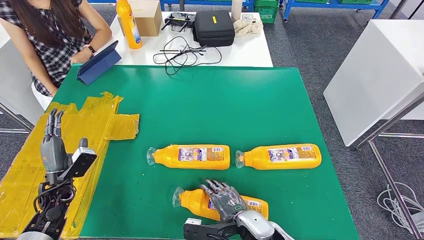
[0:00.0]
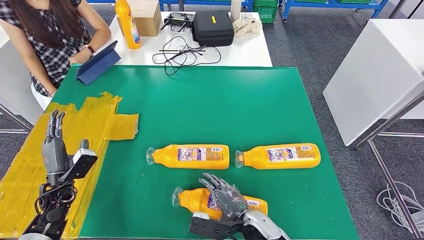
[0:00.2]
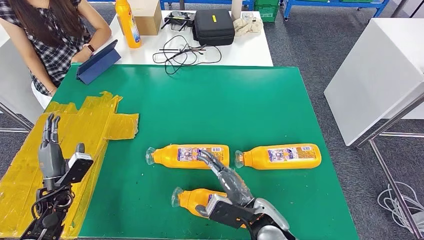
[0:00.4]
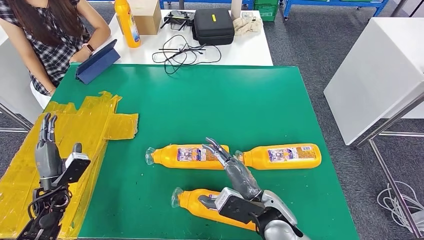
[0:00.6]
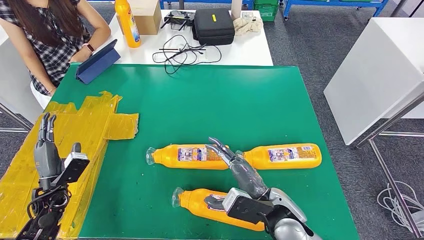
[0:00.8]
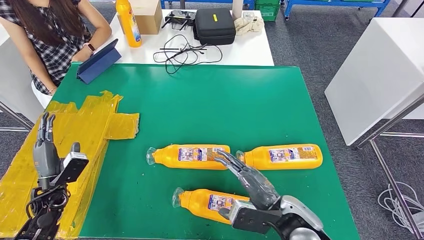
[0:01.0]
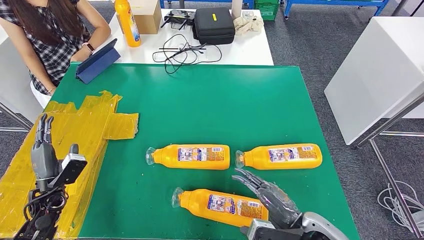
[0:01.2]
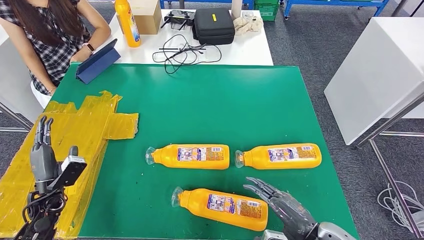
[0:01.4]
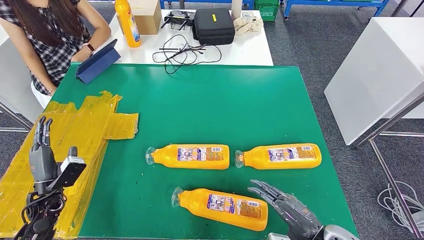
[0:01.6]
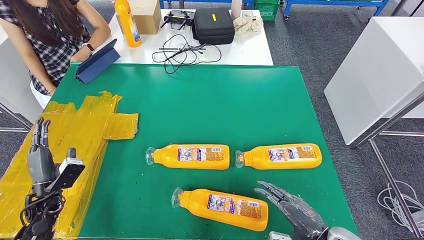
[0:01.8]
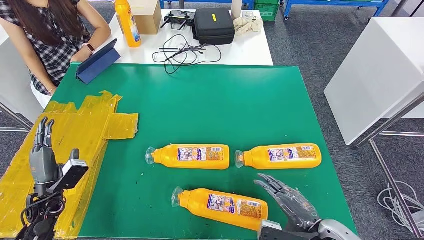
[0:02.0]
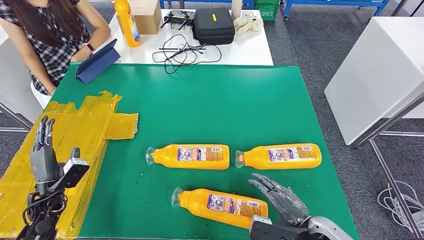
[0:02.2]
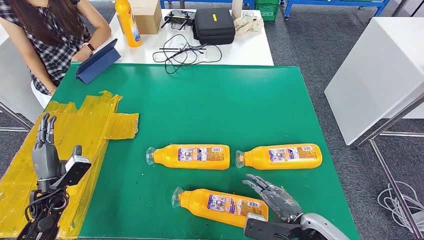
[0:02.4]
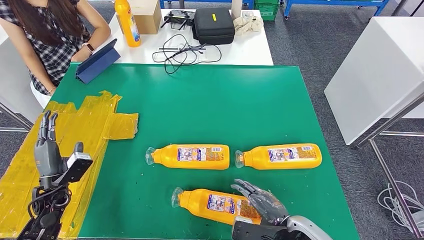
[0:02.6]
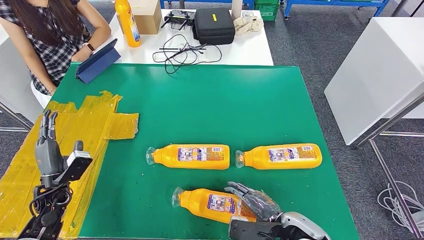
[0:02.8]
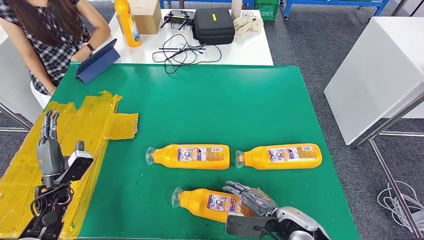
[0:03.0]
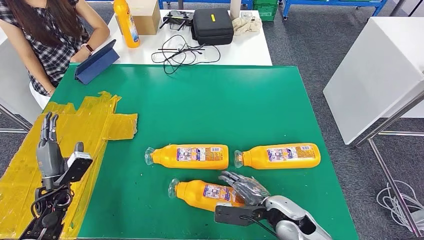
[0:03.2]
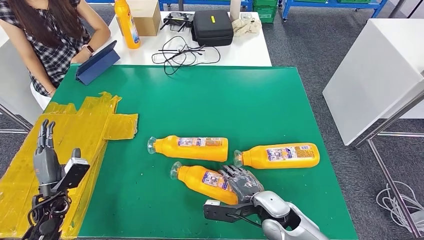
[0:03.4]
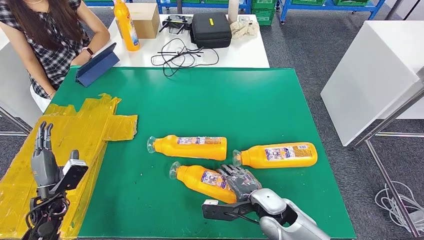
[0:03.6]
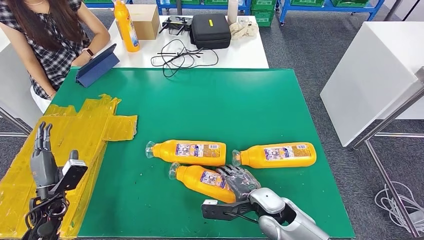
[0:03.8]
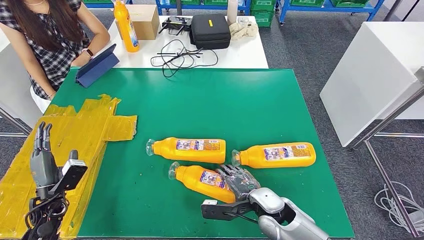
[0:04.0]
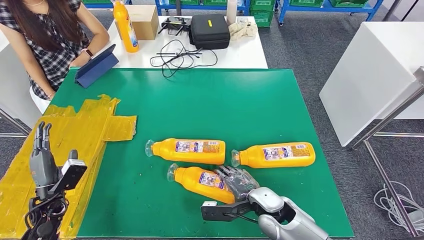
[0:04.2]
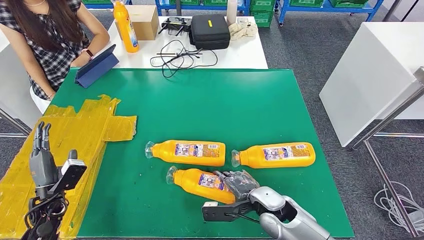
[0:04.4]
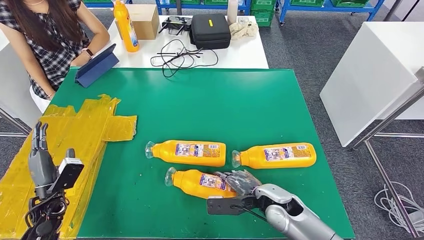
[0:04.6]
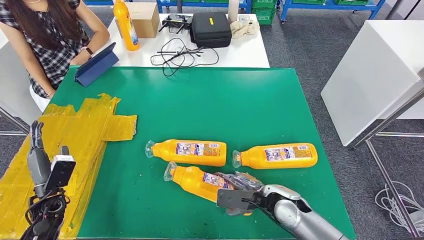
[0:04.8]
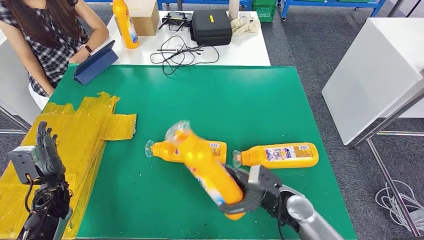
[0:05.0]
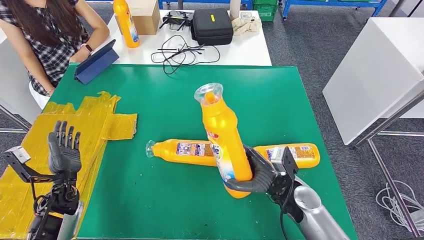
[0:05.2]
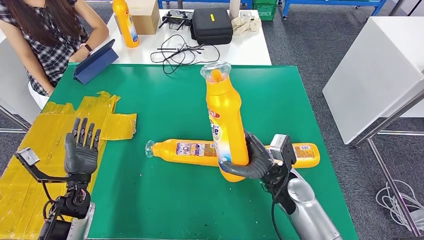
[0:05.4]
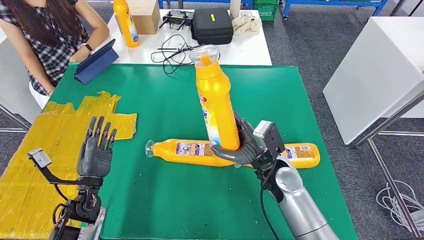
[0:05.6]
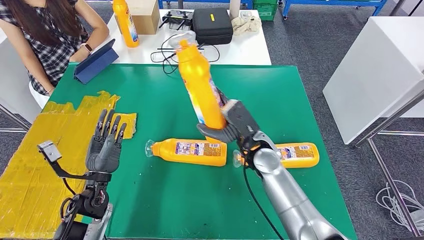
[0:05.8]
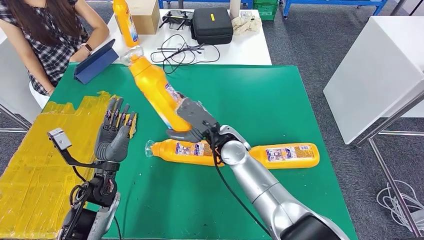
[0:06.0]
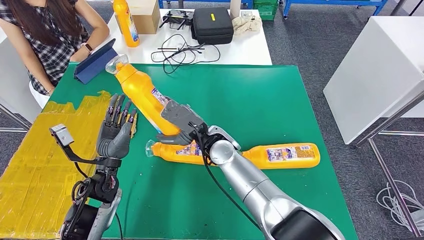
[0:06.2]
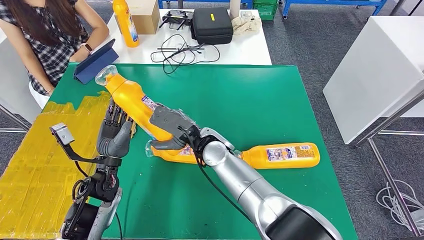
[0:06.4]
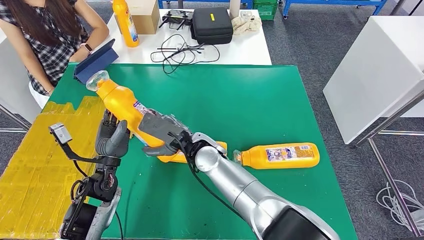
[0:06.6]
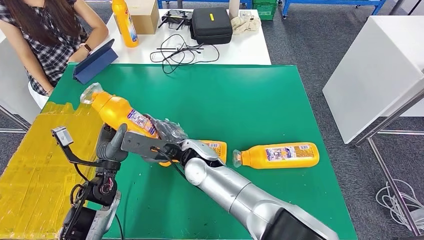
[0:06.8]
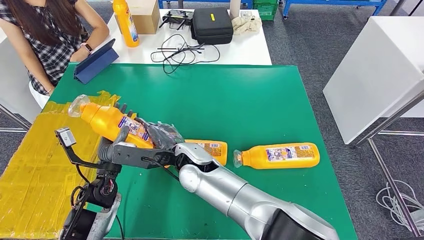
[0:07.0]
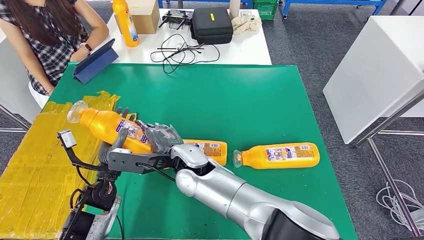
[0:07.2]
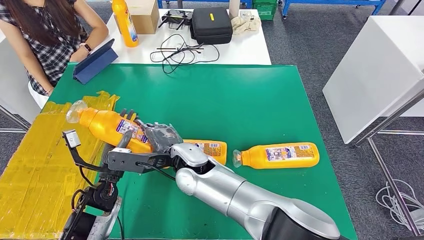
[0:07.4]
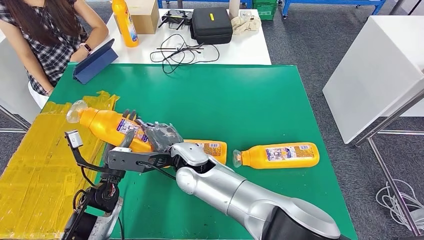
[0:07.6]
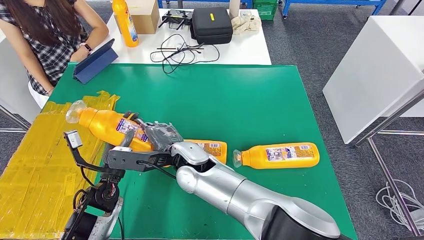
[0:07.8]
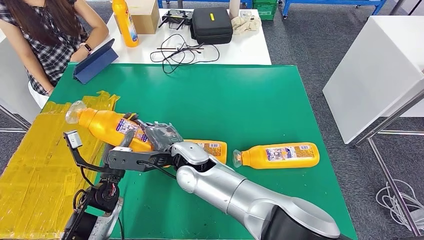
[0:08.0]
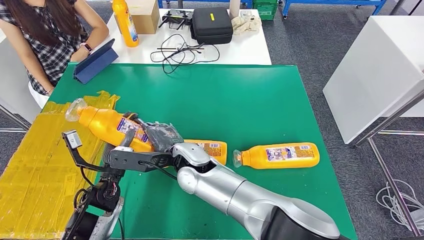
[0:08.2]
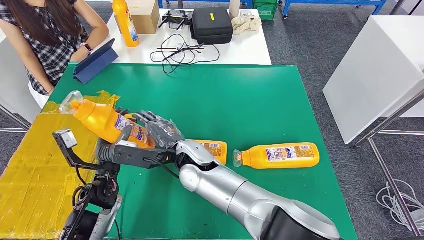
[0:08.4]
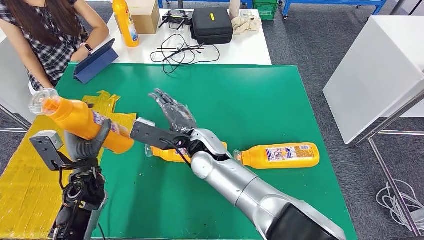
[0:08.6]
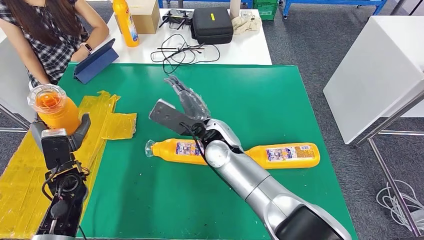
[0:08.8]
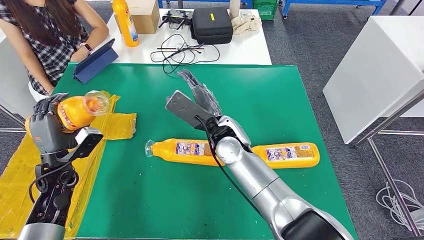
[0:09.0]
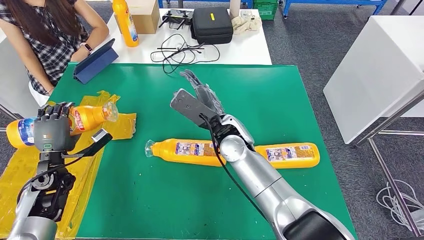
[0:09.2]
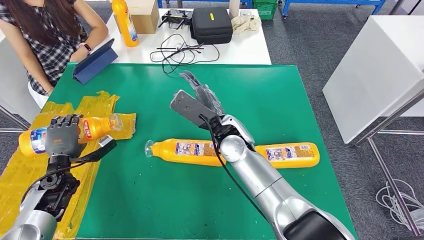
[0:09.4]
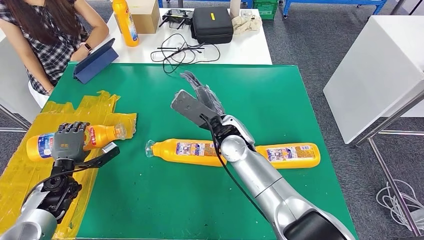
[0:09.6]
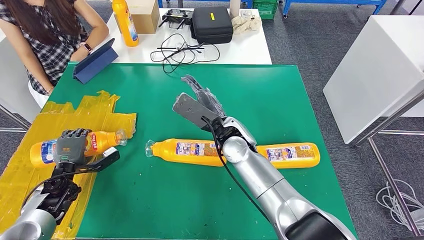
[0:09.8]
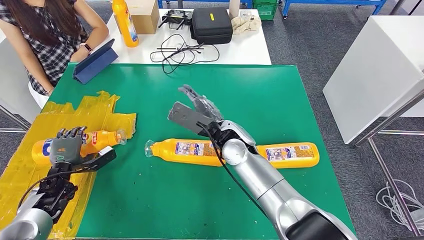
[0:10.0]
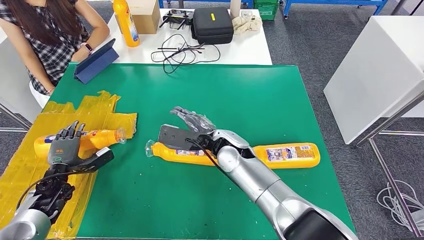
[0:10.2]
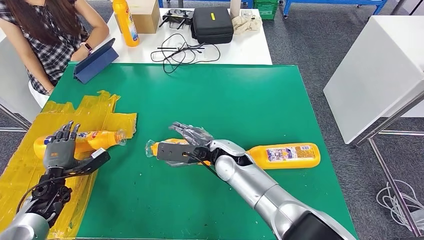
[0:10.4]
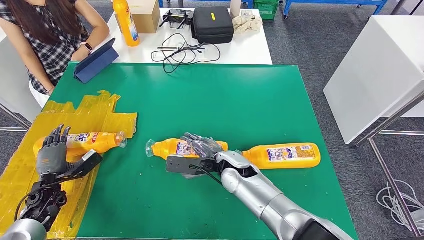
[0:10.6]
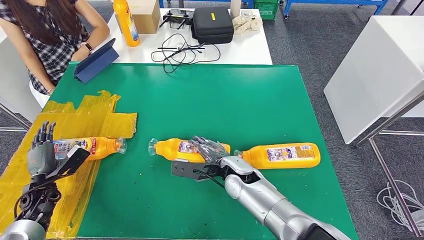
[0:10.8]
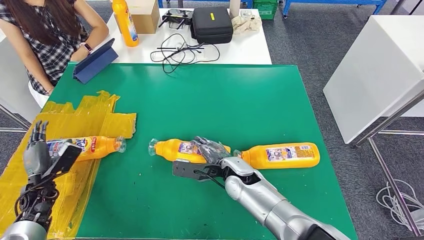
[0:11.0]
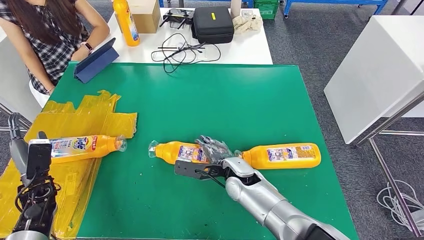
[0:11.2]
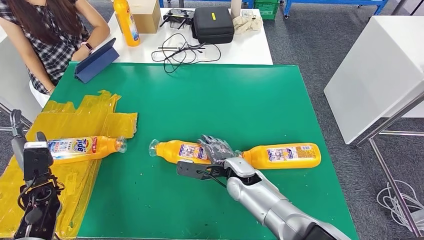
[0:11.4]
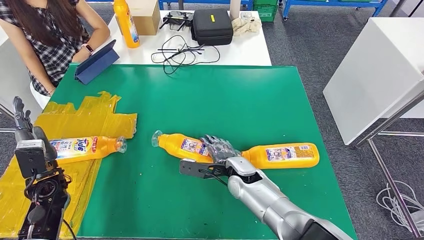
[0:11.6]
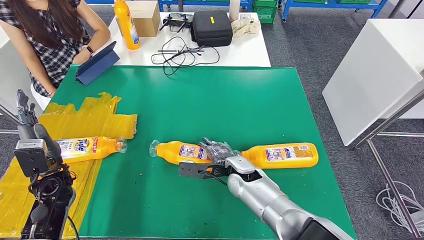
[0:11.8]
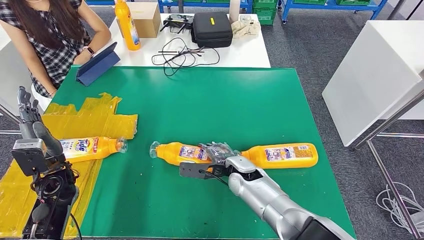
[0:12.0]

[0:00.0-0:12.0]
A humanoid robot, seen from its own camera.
Step, 0:00.0 to 0:07.4: Pick up the fast-moving consumer goods bottle from the table.
Step, 0:07.6 to 0:10.8: Flip the fast-moving consumer goods bottle to the front side.
0:00.0 to 0:01.6: The right hand travels to the right and upward by approximately 20 cm.
0:01.6 to 0:03.0: The right hand shifts roughly 10 cm downward, to the left and forward.
0:09.0 to 0:10.4: The left hand shifts some 10 cm downward and to the left, while the right hand heads downward, covering roughly 5 cm.

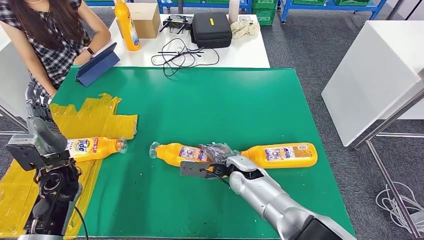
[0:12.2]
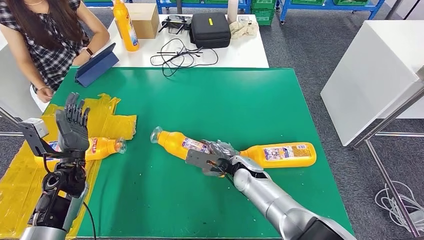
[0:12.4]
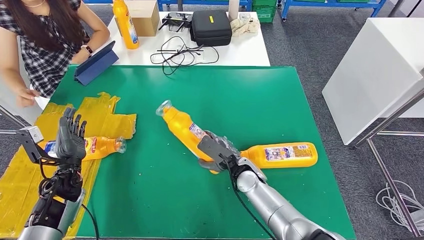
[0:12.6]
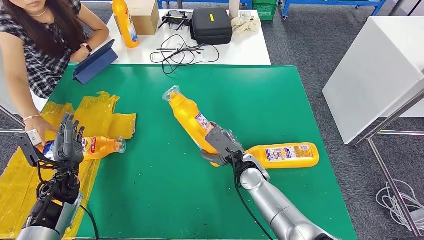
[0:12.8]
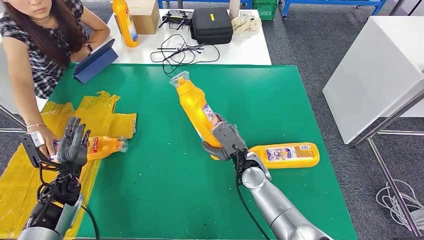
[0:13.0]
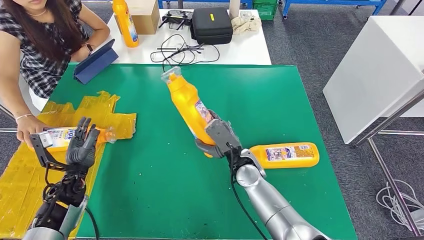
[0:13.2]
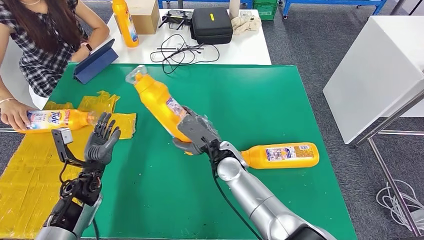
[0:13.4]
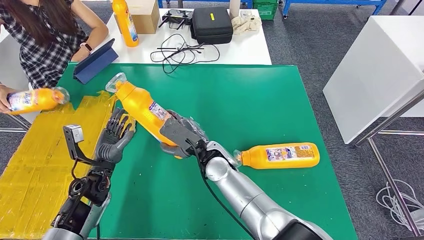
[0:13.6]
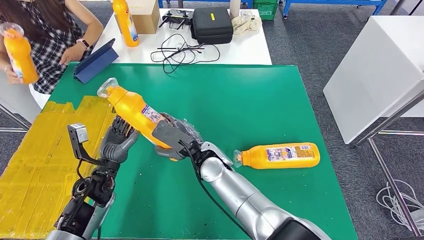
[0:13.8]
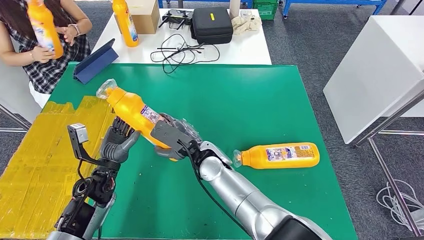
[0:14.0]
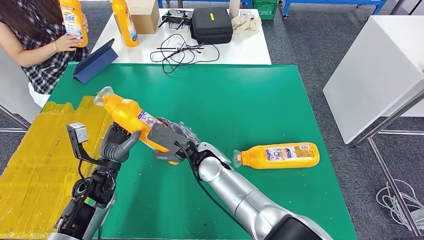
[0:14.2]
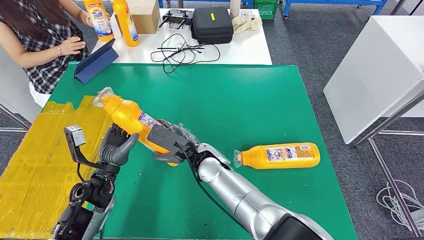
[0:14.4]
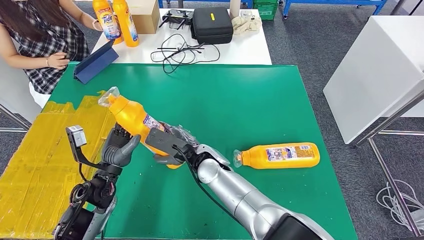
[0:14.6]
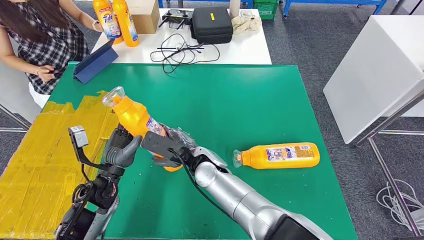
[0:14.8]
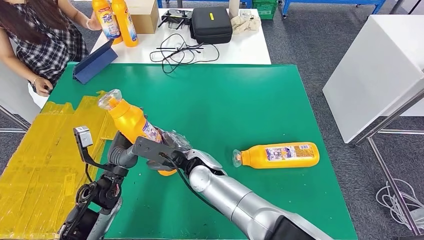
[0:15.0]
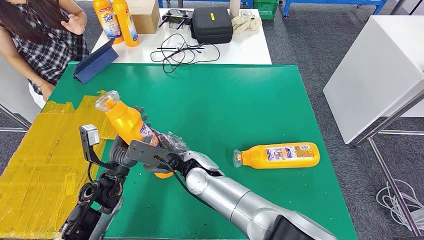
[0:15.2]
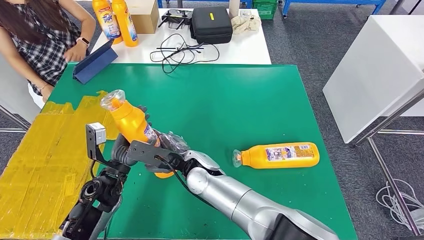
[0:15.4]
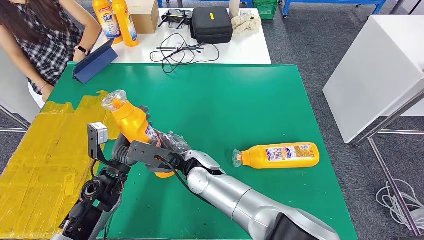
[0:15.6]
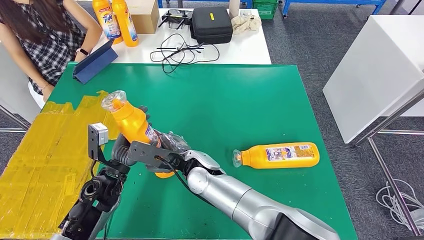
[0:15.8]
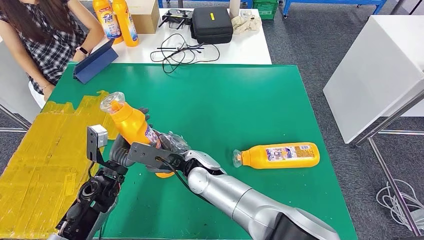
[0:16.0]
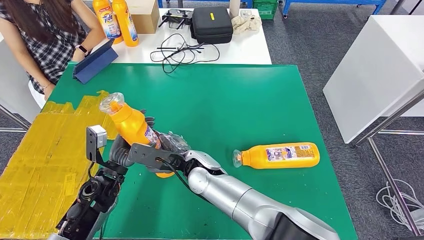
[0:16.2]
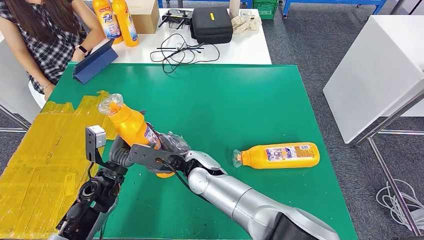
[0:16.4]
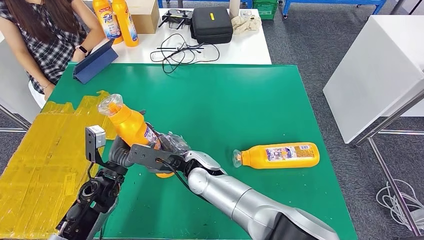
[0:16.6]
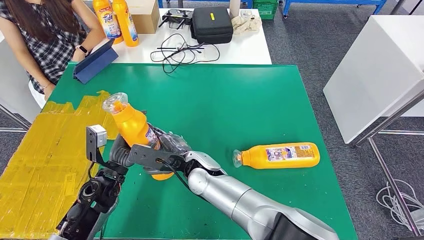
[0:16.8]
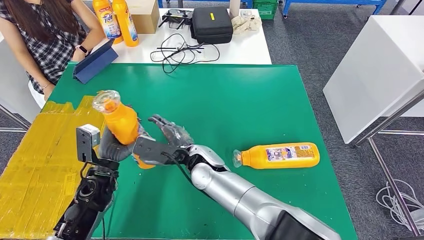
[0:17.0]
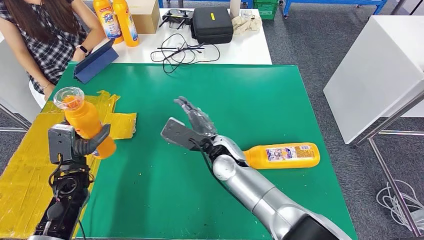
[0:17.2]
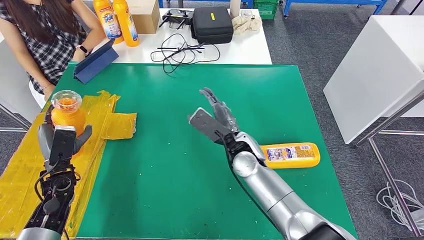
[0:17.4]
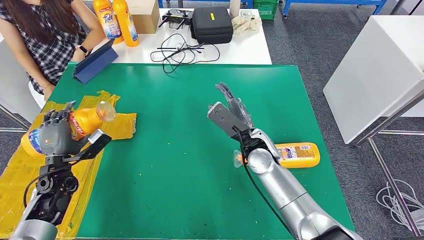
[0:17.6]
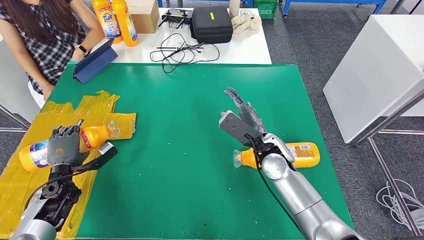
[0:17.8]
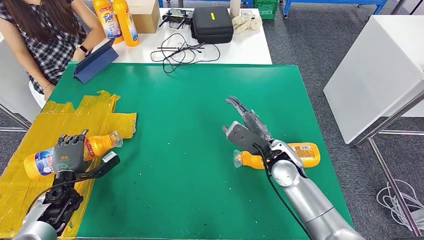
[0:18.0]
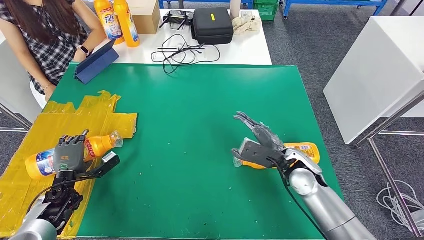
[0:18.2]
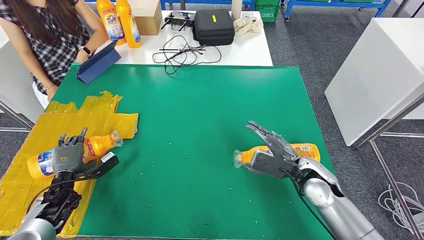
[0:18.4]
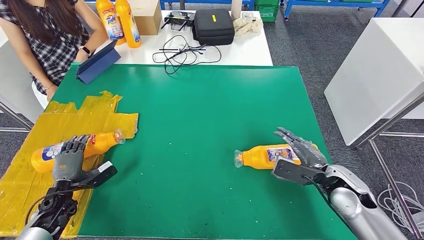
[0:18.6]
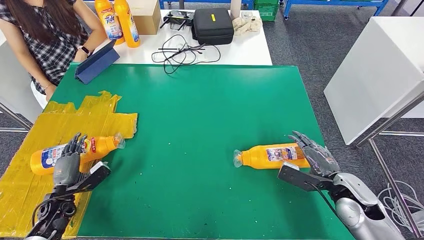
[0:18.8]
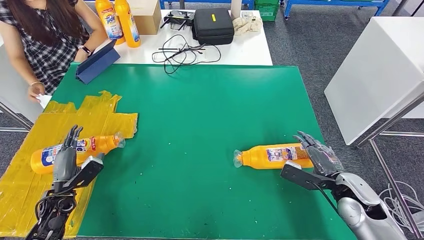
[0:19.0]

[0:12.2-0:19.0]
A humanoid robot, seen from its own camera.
Step, 0:12.2 to 0:15.6: Pick up the fast-moving consumer goods bottle from the table.
0:15.0 to 0:16.2: There are only small adjustments of the hands.
